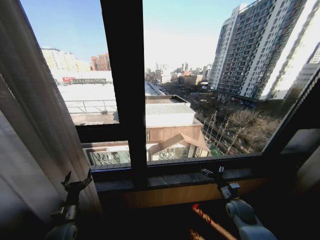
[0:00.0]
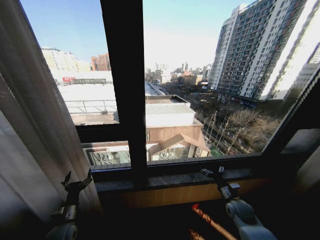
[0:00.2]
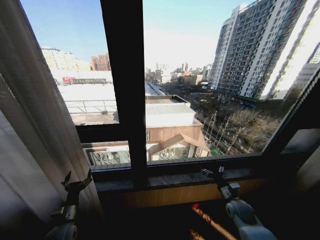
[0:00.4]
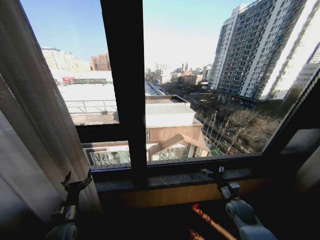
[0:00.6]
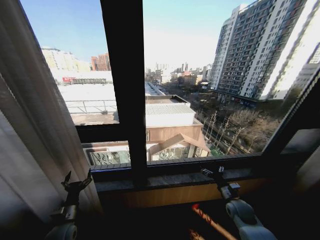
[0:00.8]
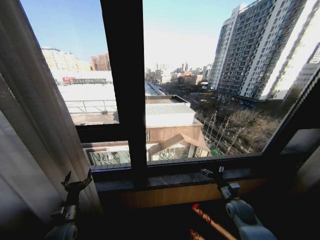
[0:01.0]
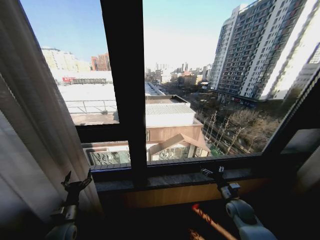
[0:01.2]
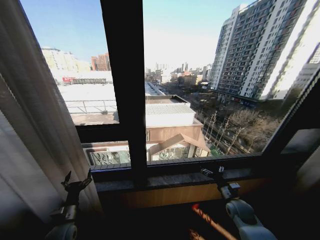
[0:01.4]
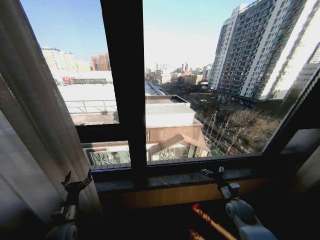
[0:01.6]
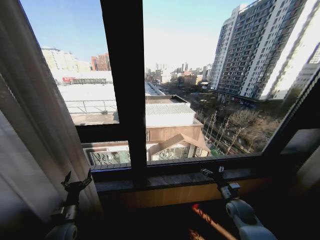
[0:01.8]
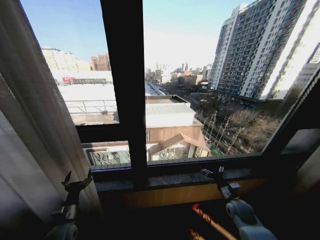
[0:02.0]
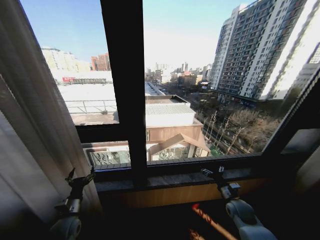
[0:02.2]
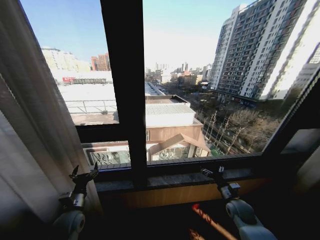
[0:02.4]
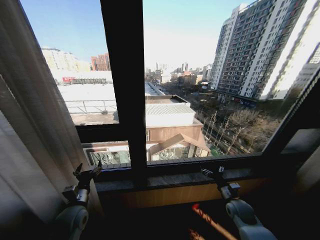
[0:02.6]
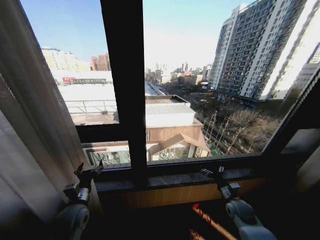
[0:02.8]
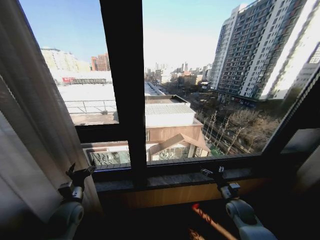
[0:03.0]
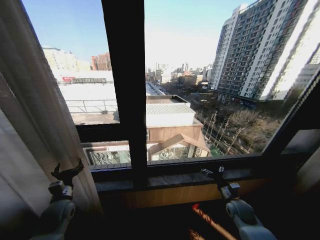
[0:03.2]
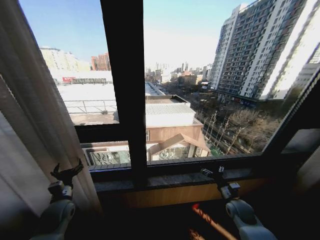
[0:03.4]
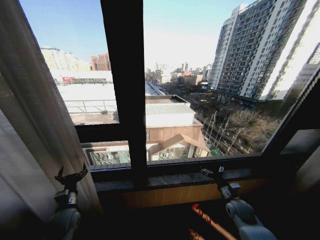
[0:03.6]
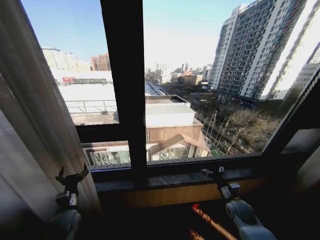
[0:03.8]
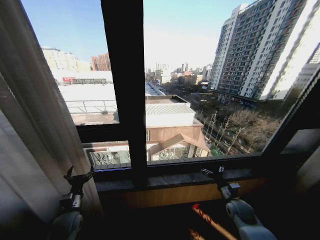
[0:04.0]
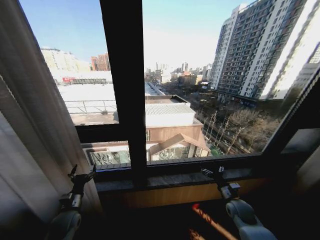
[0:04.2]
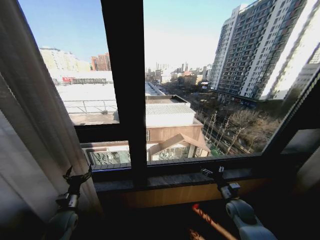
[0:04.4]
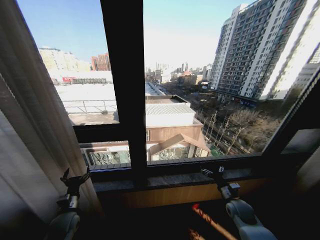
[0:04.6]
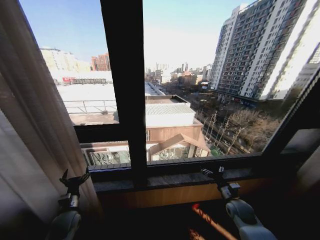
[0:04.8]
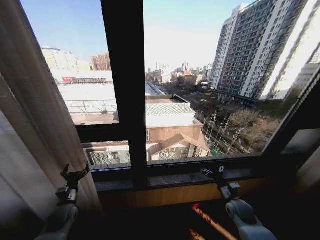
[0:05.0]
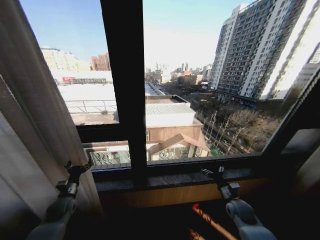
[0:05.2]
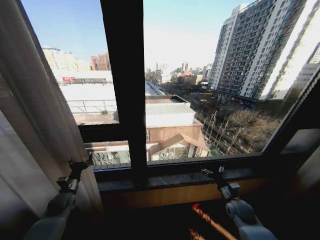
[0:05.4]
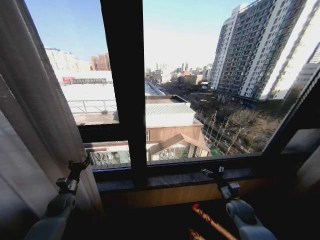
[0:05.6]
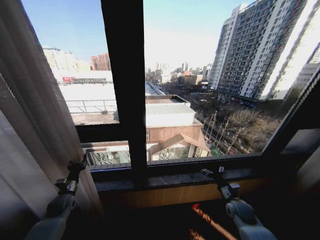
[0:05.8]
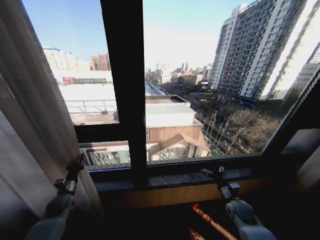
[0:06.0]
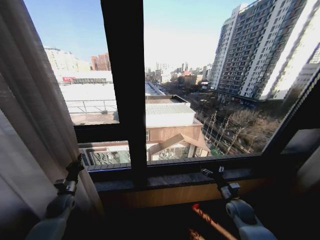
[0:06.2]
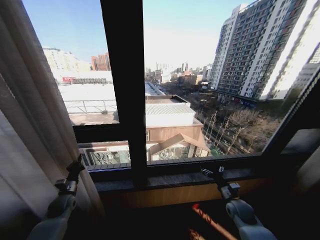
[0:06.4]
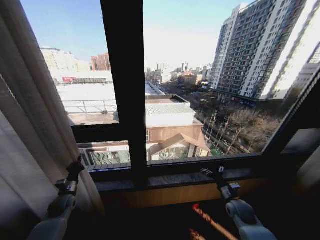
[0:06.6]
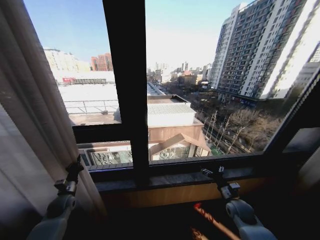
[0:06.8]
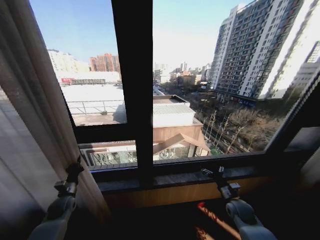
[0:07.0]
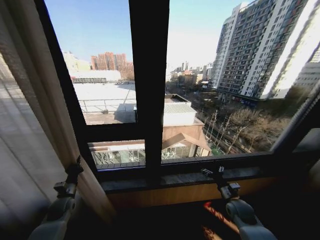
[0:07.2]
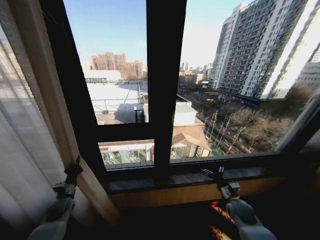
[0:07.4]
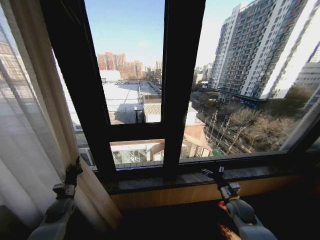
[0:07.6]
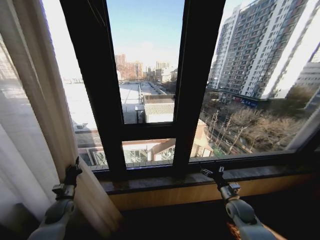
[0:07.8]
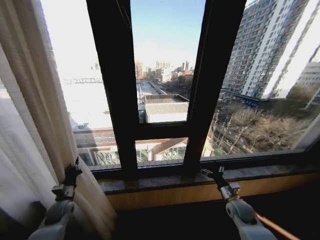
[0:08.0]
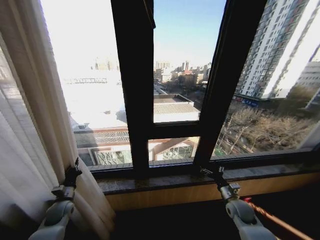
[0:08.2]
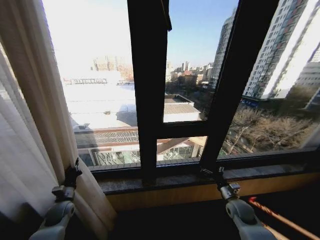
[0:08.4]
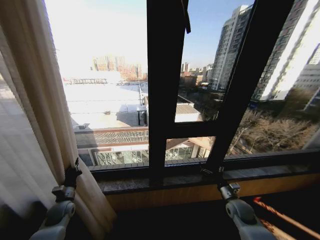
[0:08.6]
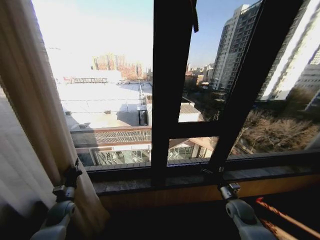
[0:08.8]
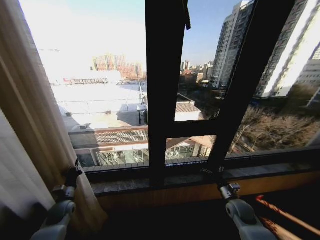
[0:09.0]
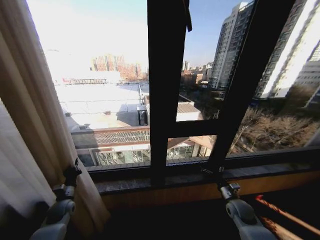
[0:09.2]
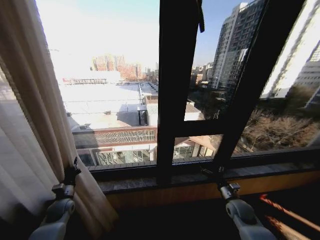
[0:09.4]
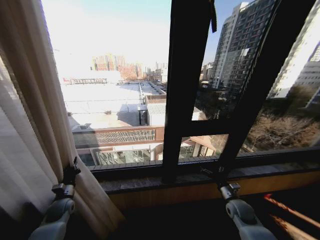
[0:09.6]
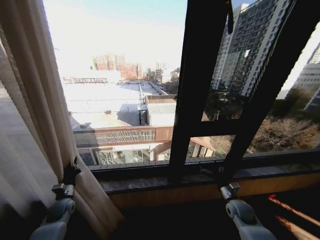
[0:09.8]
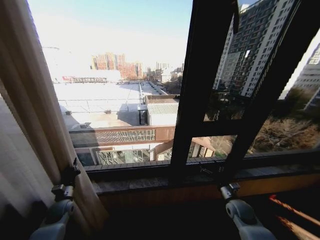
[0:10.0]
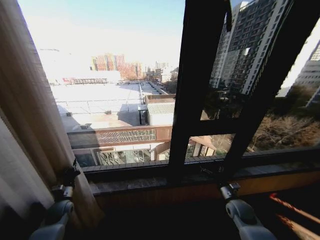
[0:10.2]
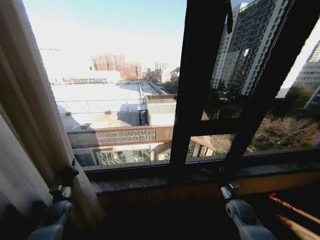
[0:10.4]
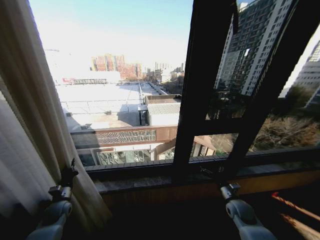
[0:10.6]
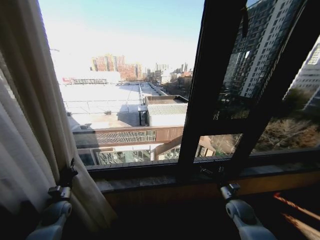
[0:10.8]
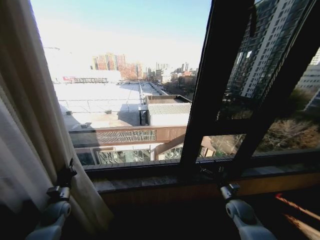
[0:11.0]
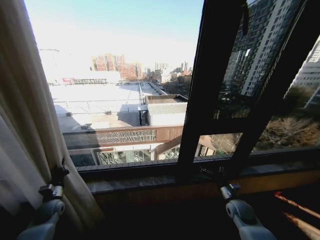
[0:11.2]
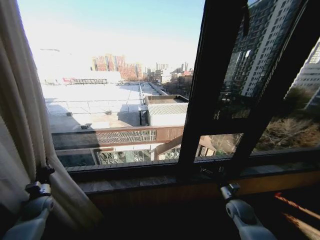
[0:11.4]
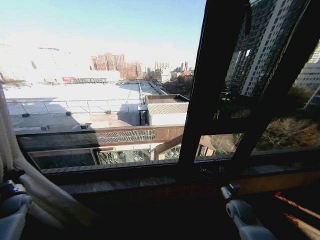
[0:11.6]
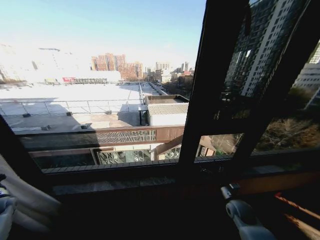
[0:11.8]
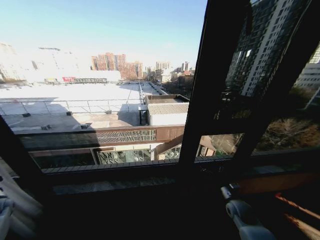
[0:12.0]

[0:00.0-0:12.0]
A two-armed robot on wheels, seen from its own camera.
Task of the whole recording: Open the curtains by pulling them apart, changing their state from closed to fully open.
0.0 to 1.6 s: Neither gripper changes place.
1.6 to 3.0 s: The left gripper is displaced upward and to the right by roughly 10 cm.
3.0 to 4.4 s: The left gripper is displaced downward and to the left by roughly 10 cm.
4.4 to 6.0 s: The left gripper travels forward by approximately 5 cm, and closes up.
10.4 to 12.0 s: The left gripper goes about 25 cm to the left.

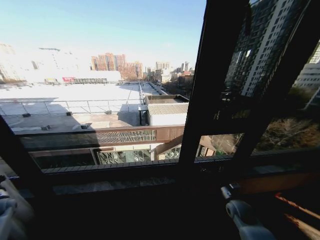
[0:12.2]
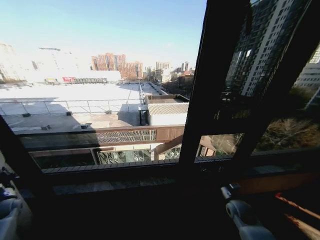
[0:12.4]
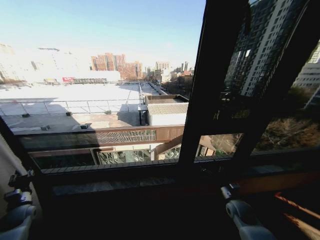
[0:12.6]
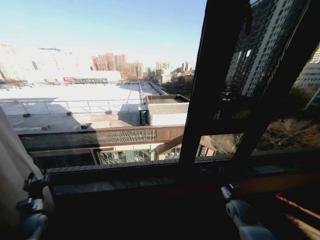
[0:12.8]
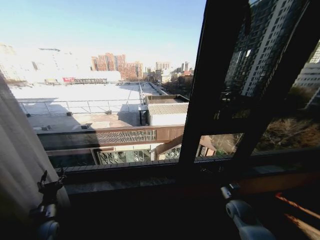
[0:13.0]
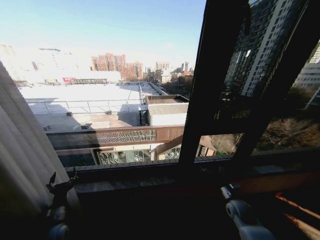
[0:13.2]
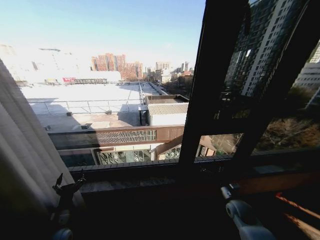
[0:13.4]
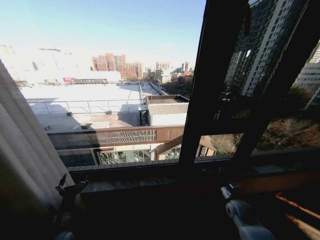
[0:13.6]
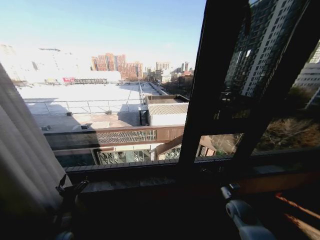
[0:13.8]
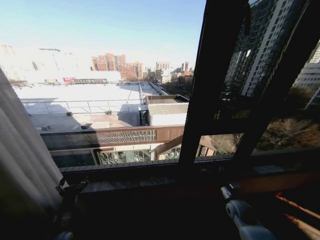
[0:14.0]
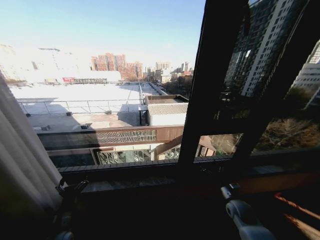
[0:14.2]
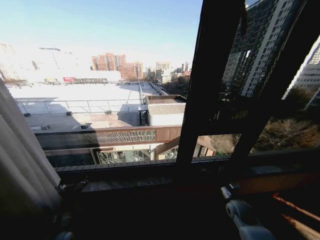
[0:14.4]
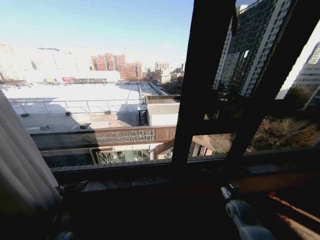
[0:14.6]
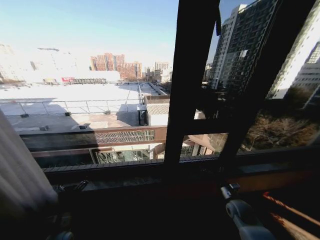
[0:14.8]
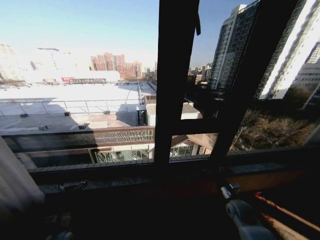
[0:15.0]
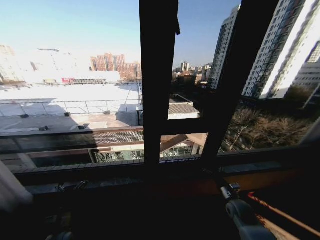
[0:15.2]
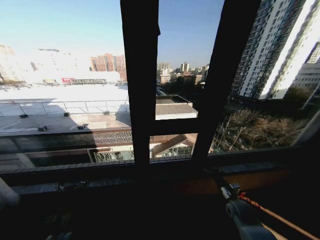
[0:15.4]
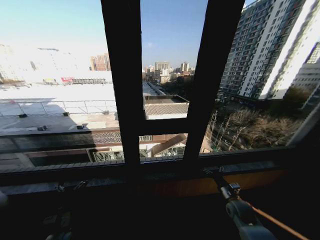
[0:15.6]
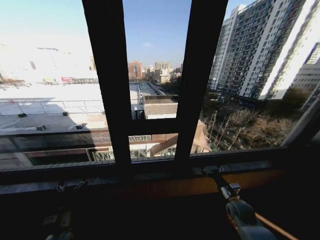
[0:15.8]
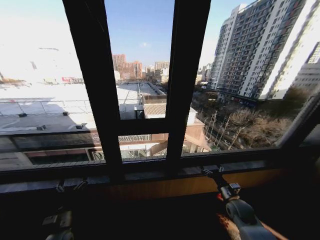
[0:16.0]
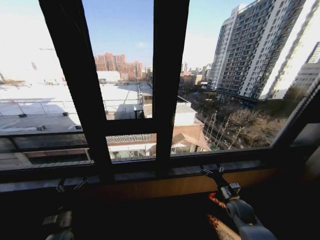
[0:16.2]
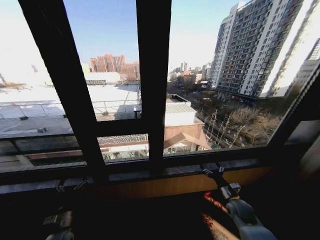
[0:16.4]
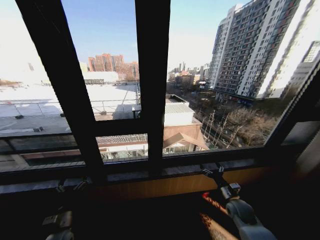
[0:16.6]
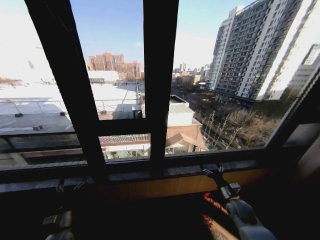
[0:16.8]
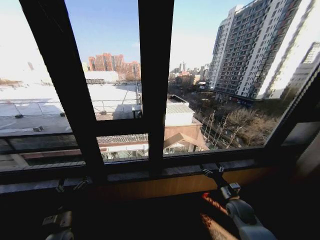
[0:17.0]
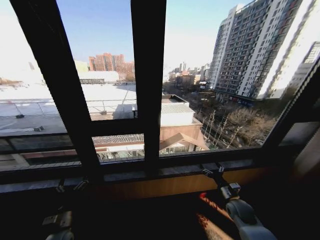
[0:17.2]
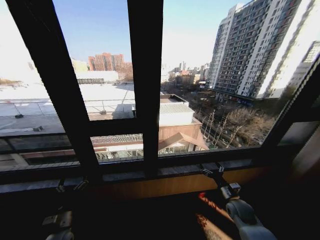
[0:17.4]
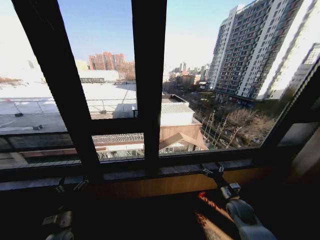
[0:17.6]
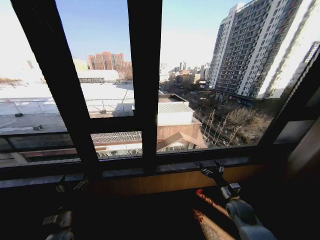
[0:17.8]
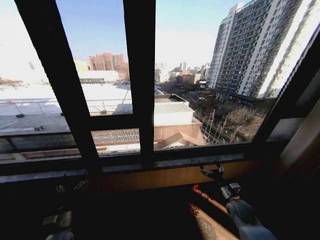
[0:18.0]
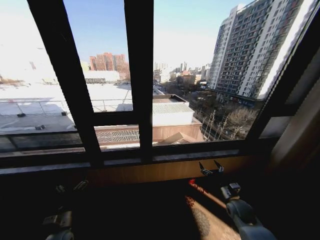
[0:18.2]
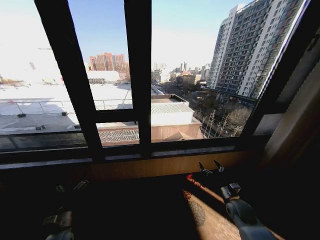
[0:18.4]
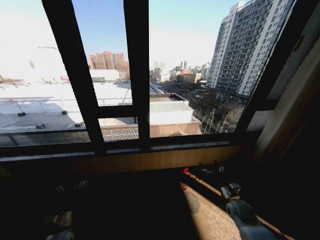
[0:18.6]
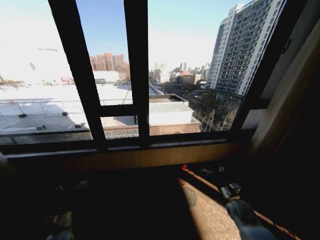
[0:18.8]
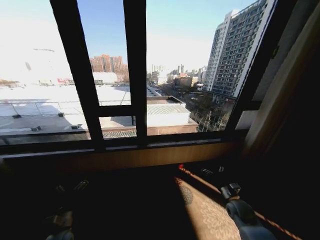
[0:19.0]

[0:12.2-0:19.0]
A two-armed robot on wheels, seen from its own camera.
Task of the whole recording: Open the curtains by pulling them apart, changing their state from closed to fully open.
12.2 to 13.6 s: The left gripper shifts about 30 cm to the right, and opens its fingers.

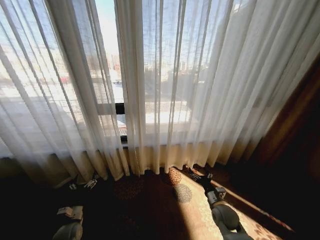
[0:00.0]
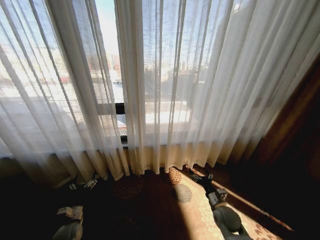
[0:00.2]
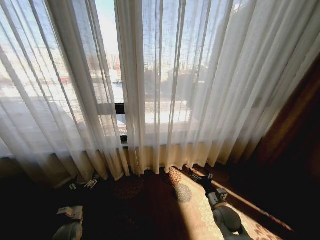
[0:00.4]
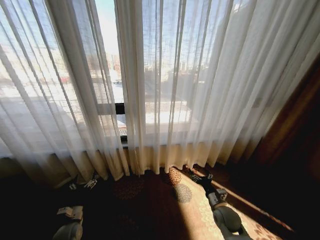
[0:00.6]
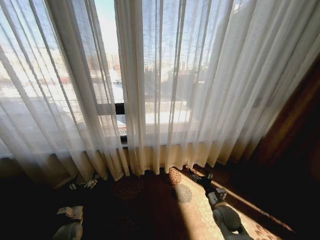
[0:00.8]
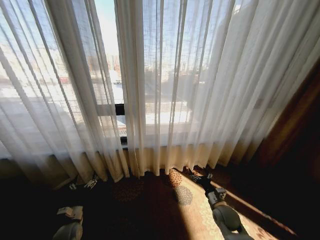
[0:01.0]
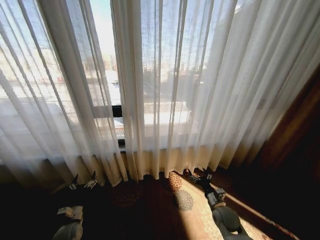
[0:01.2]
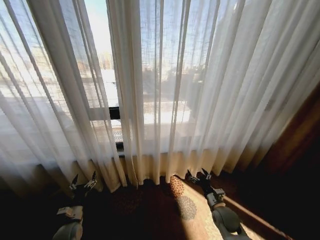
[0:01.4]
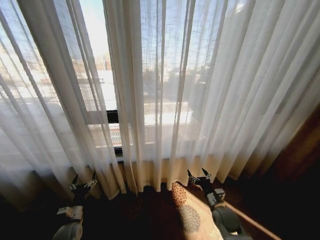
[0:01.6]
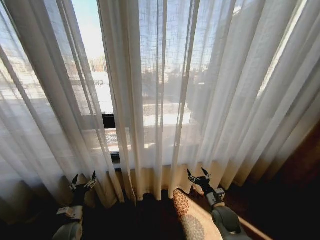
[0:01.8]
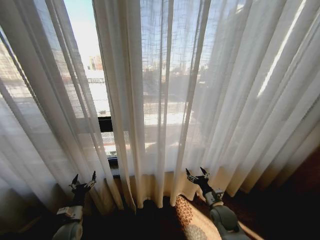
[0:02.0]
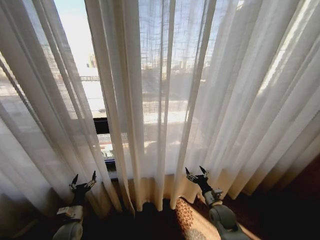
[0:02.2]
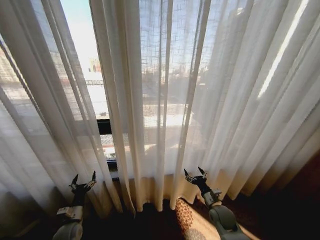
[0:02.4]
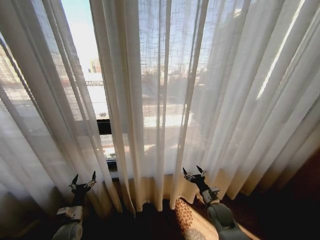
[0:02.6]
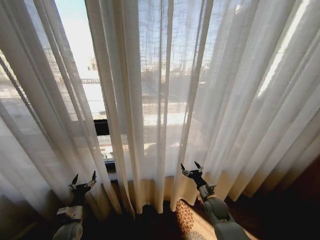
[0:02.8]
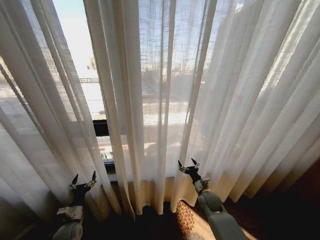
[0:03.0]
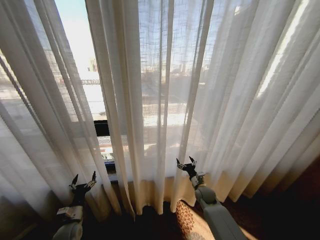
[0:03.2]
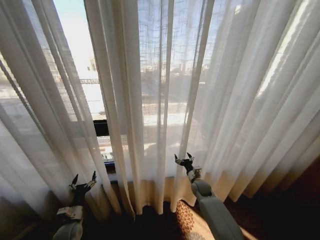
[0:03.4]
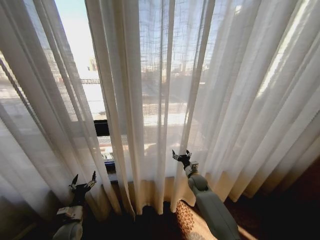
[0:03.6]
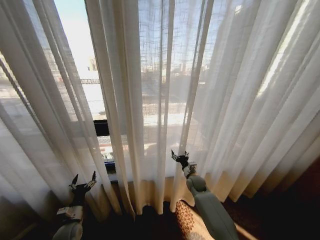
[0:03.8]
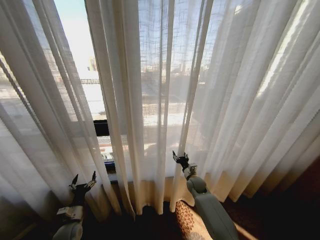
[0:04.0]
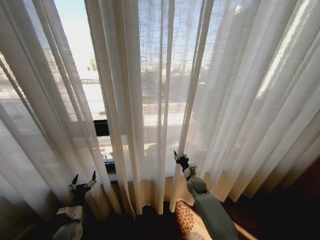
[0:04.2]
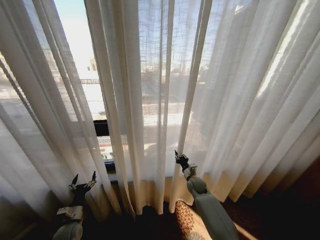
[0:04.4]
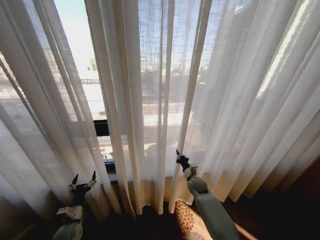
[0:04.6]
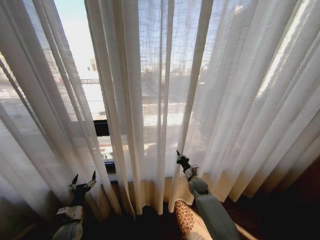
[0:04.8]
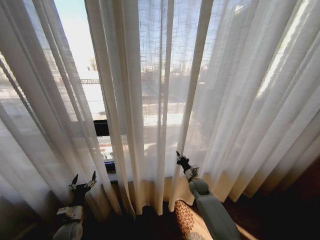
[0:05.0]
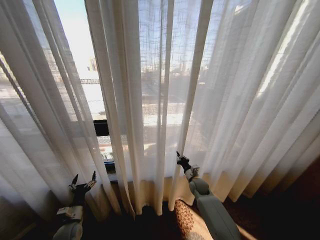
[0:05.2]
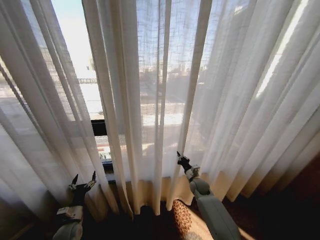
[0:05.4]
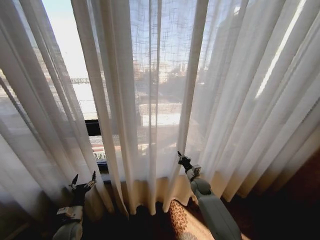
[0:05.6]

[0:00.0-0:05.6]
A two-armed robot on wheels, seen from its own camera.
Task of the whole recording: Open the curtains by pulling them apart, changing their state from closed to fully open.
2.8 to 4.2 s: The right gripper moves forward and to the left, some 10 cm, and closes up.
4.2 to 5.6 s: The right gripper closes its fingers.
